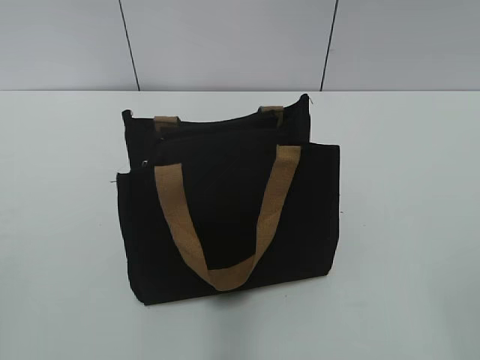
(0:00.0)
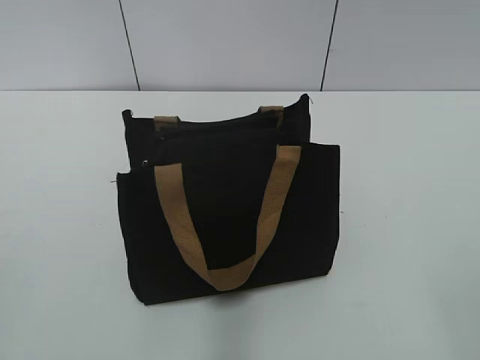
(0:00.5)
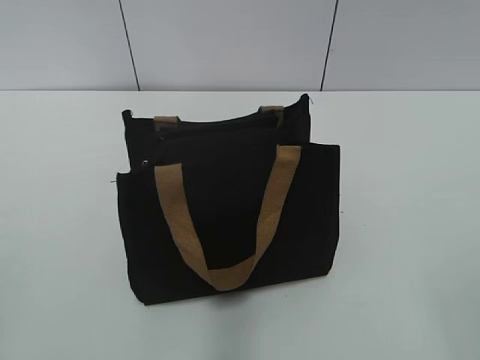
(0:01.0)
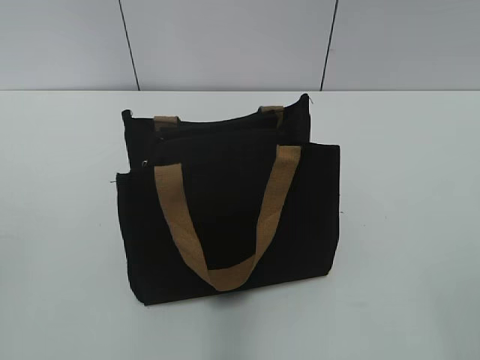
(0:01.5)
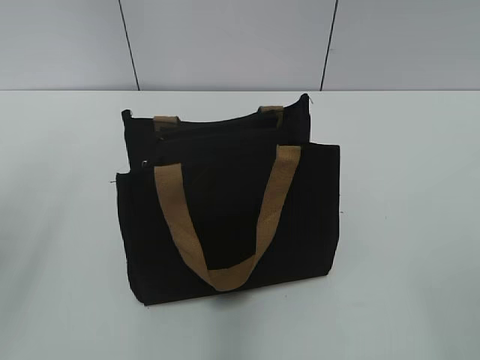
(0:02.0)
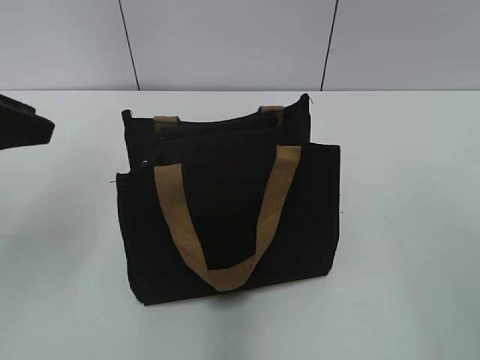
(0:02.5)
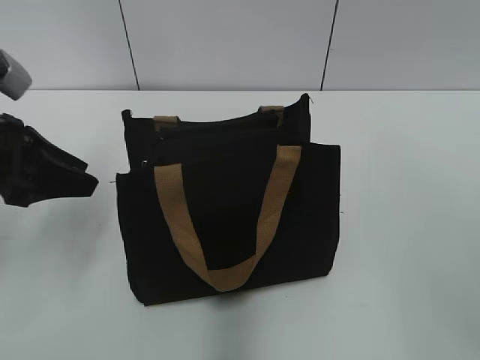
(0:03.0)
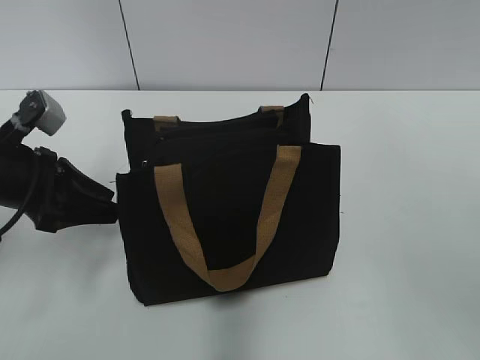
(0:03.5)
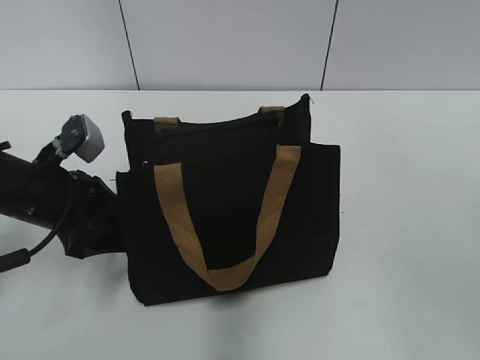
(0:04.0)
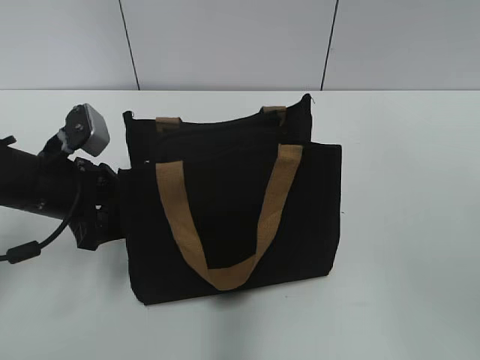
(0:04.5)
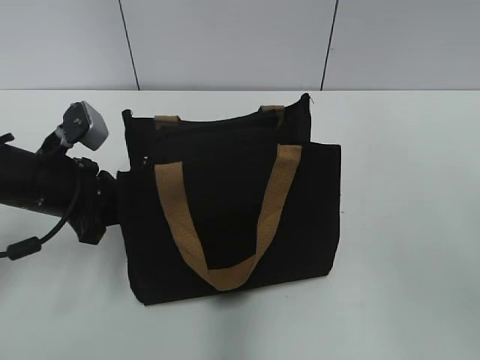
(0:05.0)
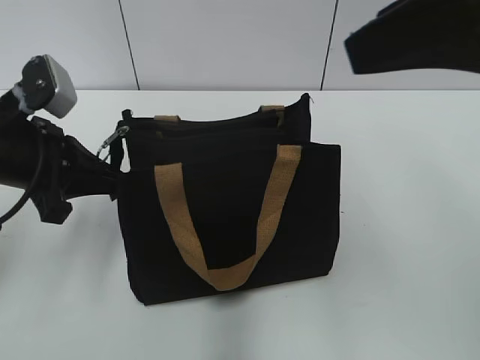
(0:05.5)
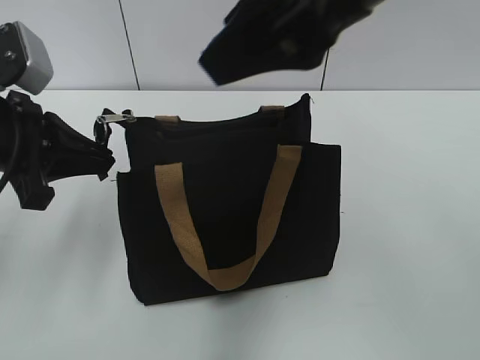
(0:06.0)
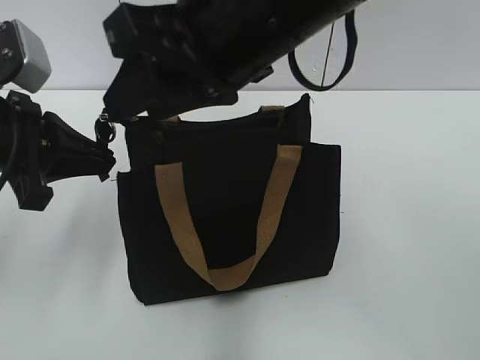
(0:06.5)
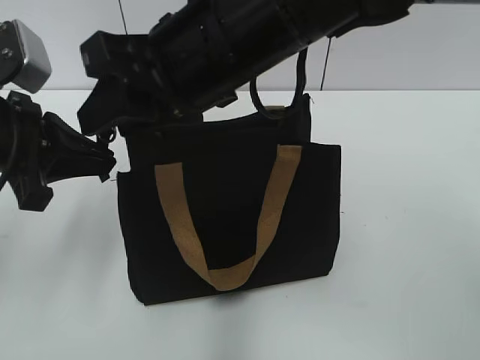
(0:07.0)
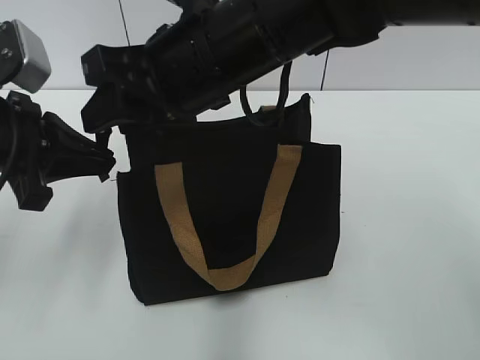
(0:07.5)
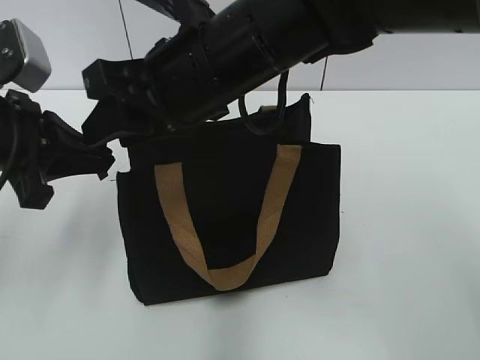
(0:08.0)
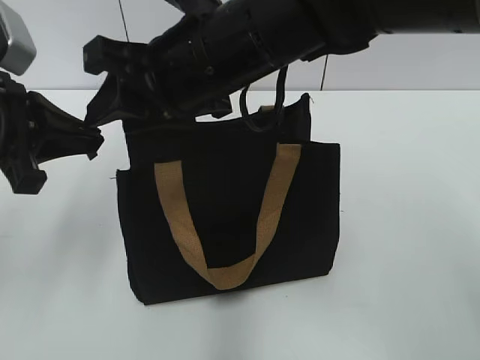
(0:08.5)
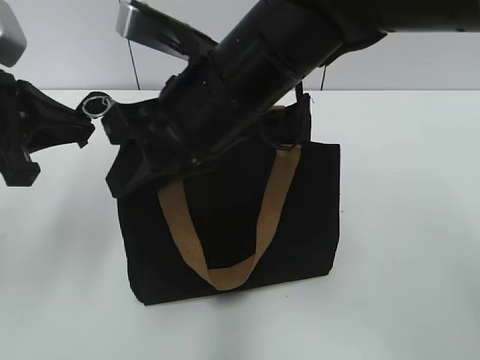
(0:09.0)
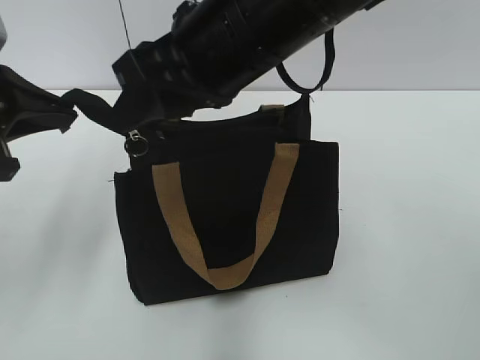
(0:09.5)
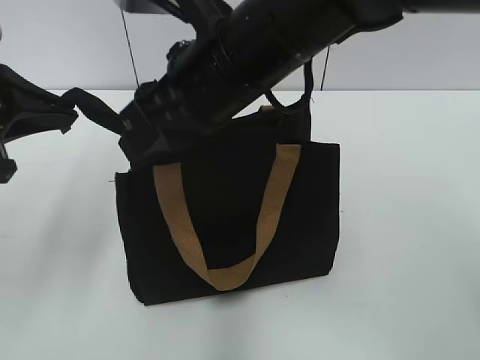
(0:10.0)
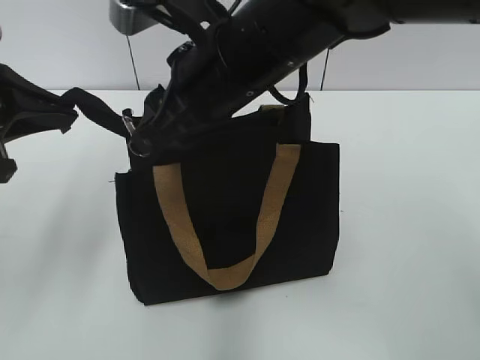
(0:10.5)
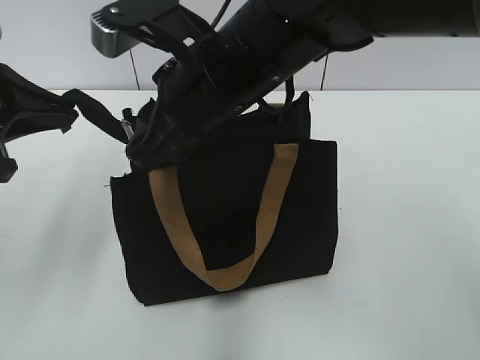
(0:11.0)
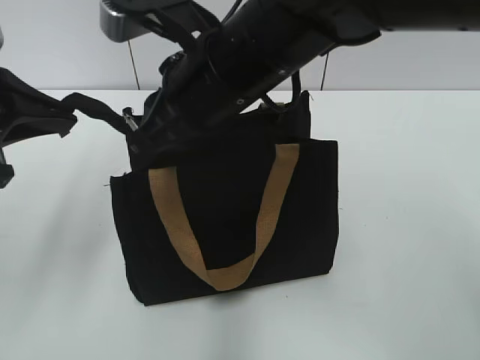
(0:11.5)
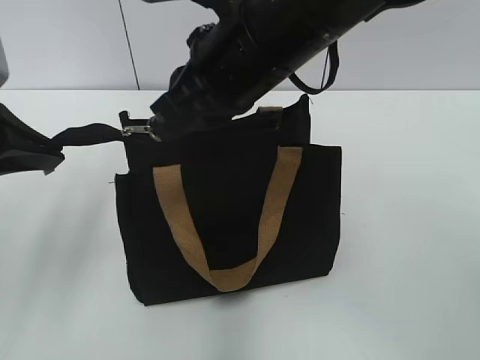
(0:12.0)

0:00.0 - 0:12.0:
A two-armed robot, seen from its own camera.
0:02.0 - 0:04.0: The left gripper is displaced downward and forward by about 25 cm.
0:04.0 - 0:06.0: The left gripper is displaced upward by roughly 10 cm, and closes, while the right gripper moves to the left and forward, roughly 20 cm.
0:06.0 - 0:08.0: The right gripper goes about 15 cm downward, to the left and forward.
0:08.0 - 0:10.0: There are only small adjustments of the grippers.
0:10.0 - 0:12.0: The right gripper closes up.

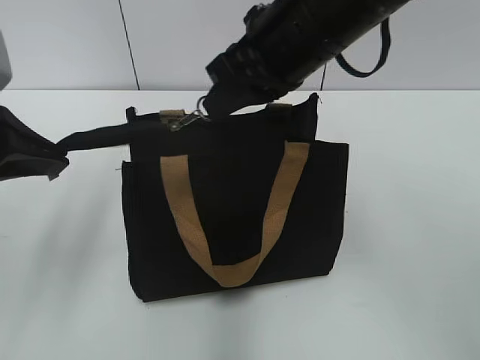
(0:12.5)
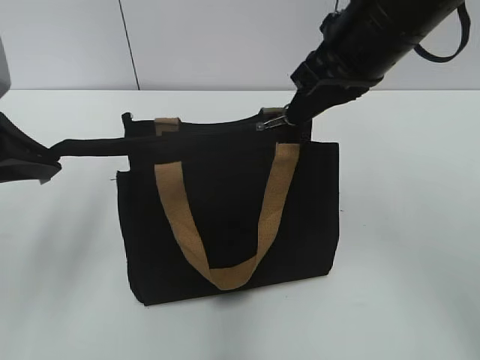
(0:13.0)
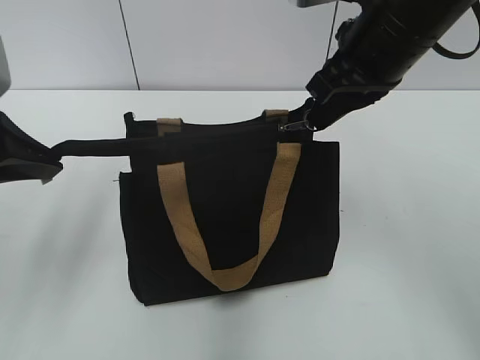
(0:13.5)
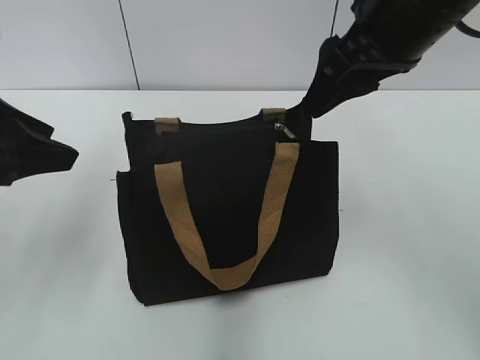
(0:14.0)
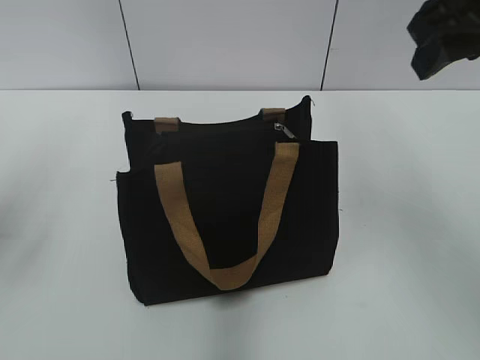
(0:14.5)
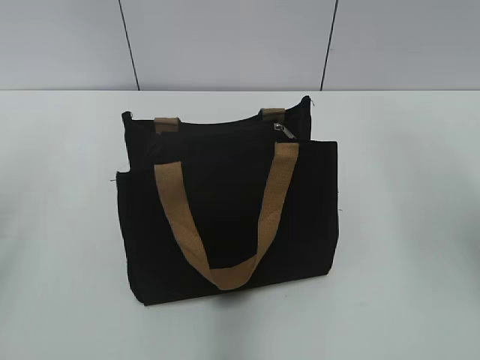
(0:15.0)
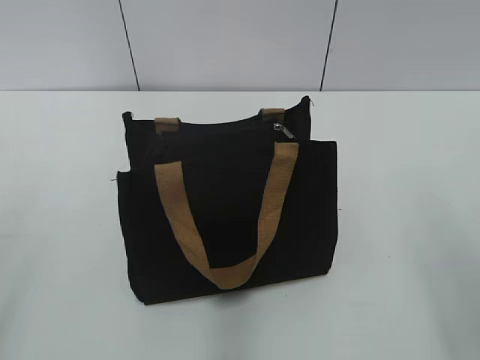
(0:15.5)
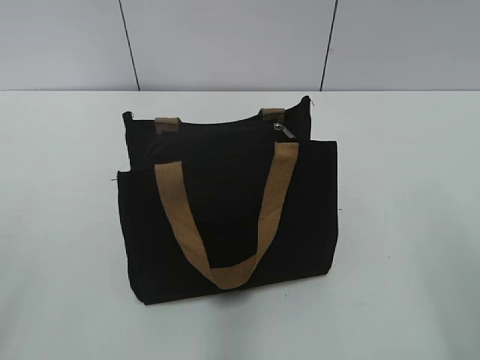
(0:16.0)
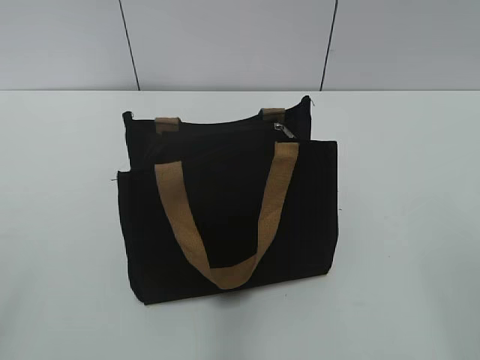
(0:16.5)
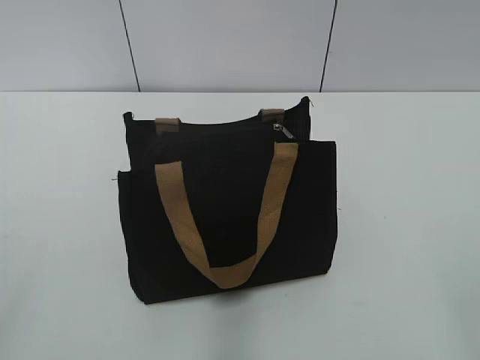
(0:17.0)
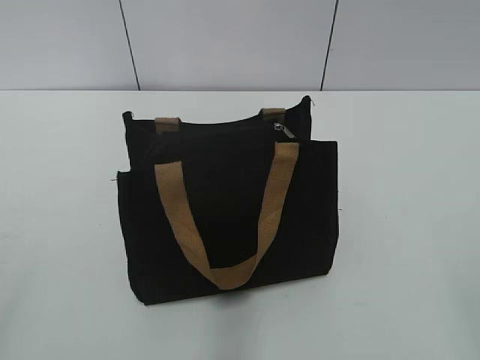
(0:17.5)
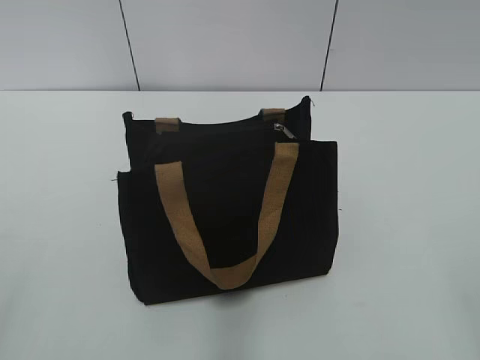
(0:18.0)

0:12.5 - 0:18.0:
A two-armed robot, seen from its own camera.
0:12.5 - 0:14.5: The left gripper moves roughly 5 cm, and opens its fingers. The right gripper is displaced to the right and upward by roughly 15 cm, and opens.
0:14.5 - 0:16.0: The right gripper heads backward and downward, covering about 20 cm, while the left gripper shifts some 20 cm backward.

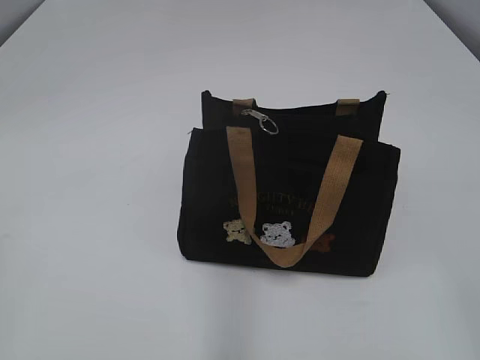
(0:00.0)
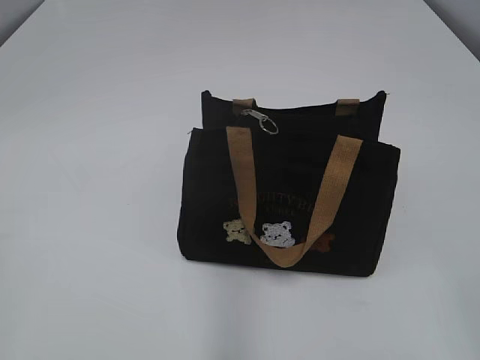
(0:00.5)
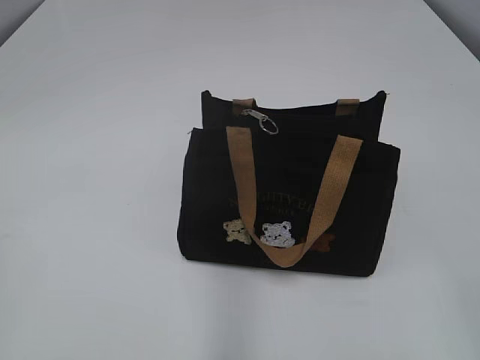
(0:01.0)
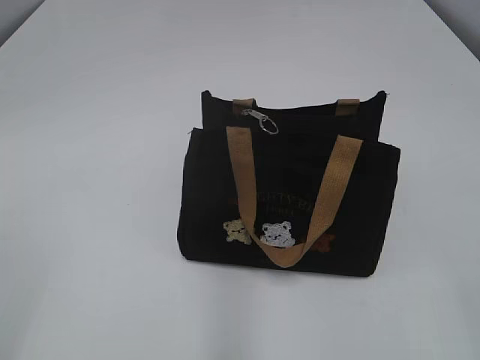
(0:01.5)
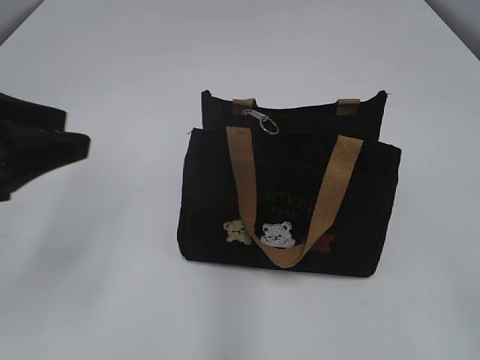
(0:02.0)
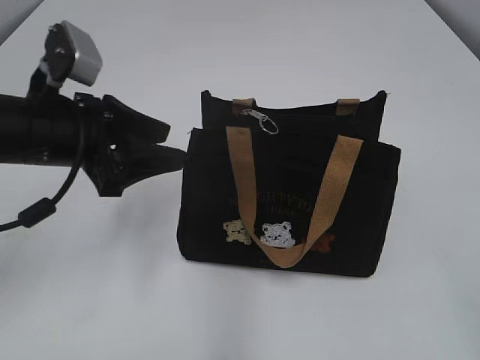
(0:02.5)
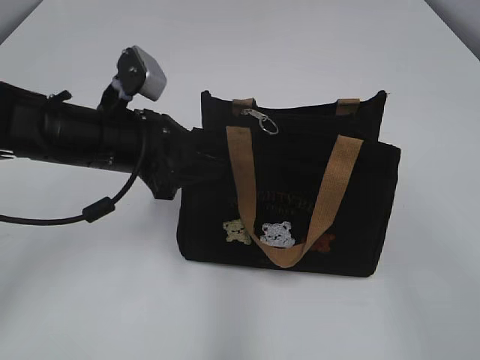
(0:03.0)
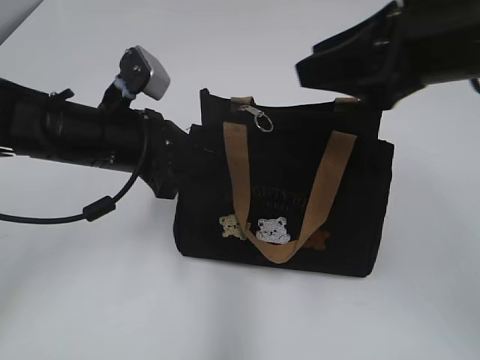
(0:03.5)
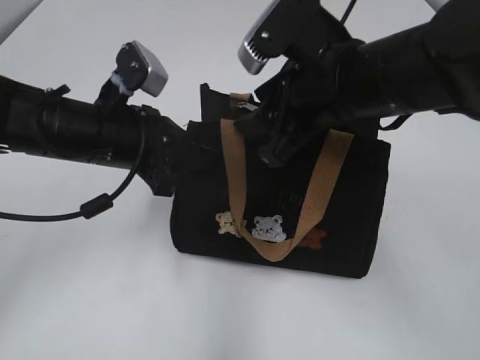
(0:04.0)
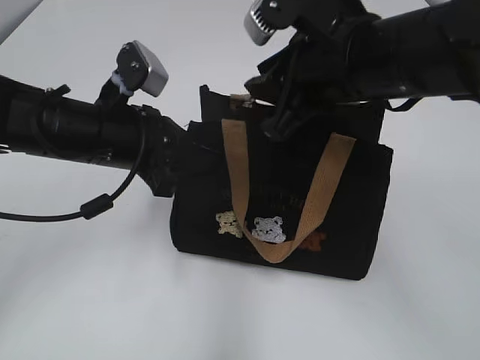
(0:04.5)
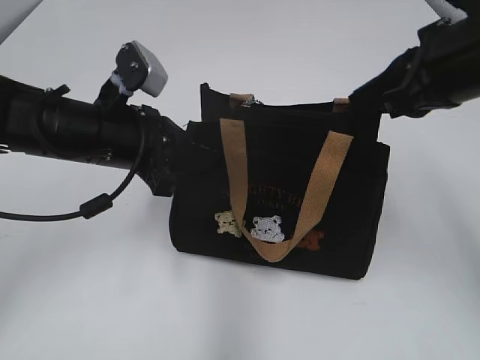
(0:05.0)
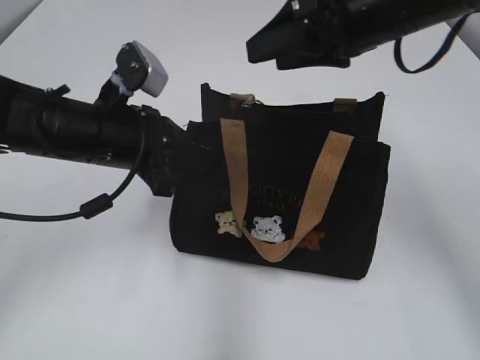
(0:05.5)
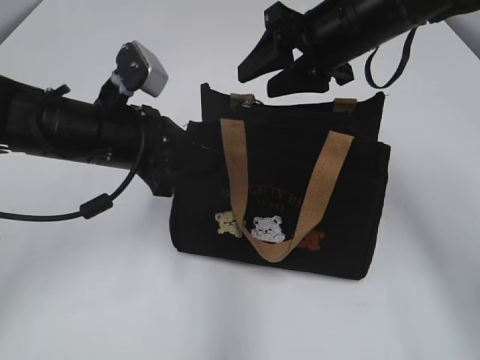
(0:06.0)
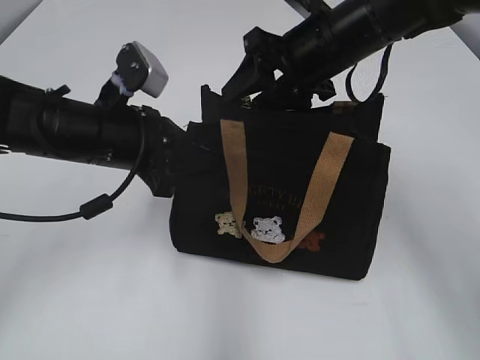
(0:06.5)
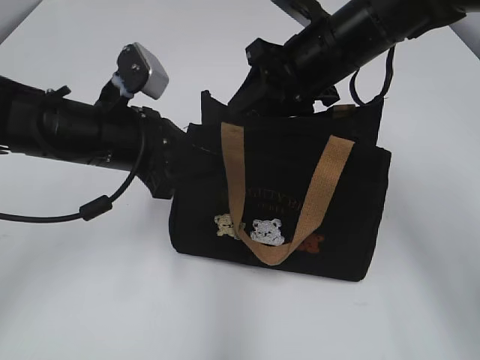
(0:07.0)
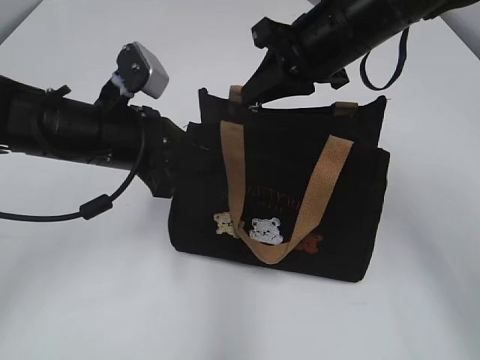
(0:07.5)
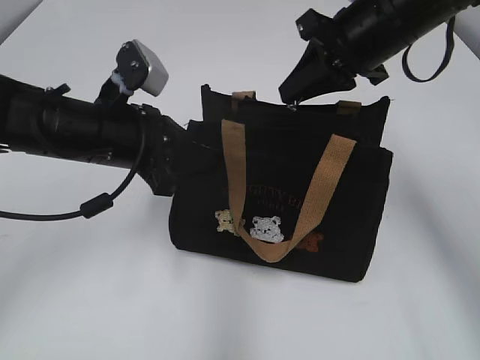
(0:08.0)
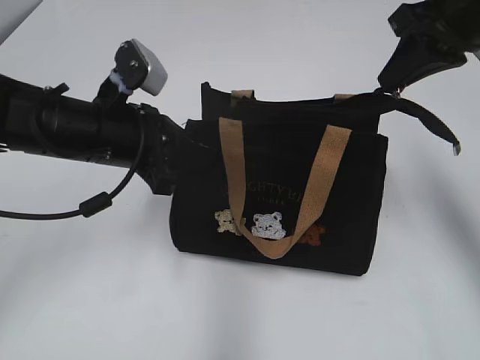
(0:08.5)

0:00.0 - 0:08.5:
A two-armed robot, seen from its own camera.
0:02.0 - 0:04.0: The right gripper travels forward and to the left by roughly 35 cm, while the left gripper moves to the right, forward and downward, roughly 15 cm, and closes.
0:04.0 - 0:06.5: The right gripper goes about 10 cm forward, and closes, then opens again.
0:06.5 - 0:08.5: The right gripper shifts some 15 cm to the right and upward, and closes up.
